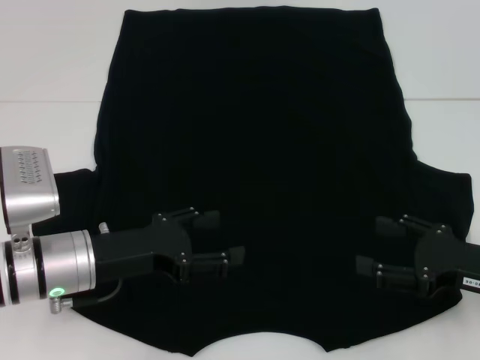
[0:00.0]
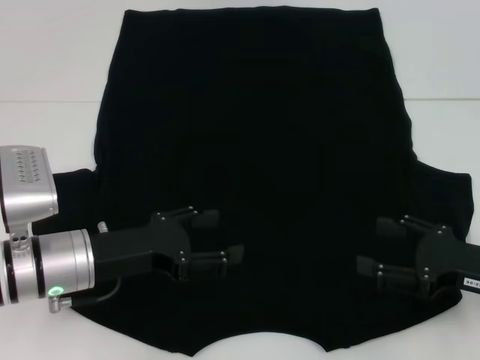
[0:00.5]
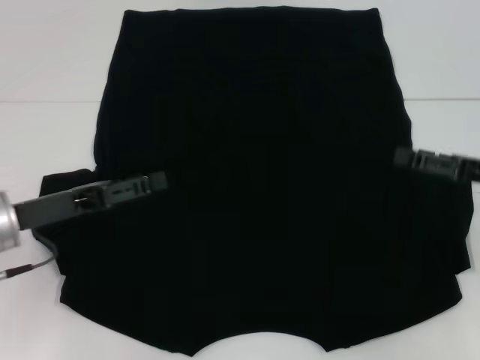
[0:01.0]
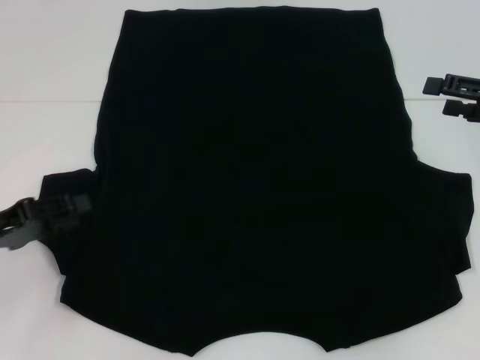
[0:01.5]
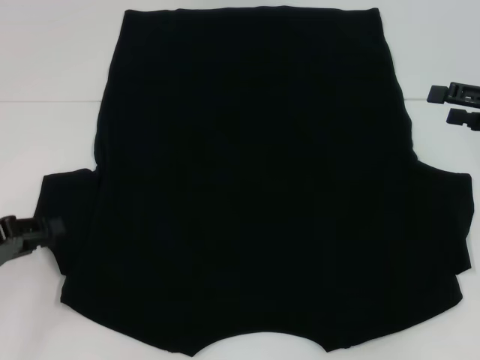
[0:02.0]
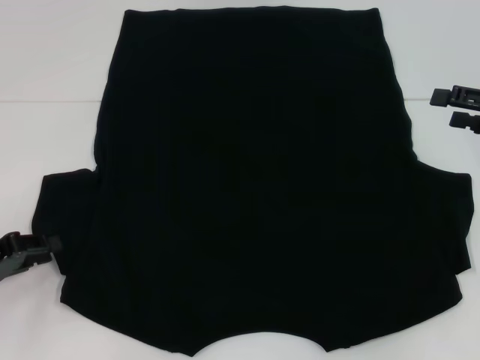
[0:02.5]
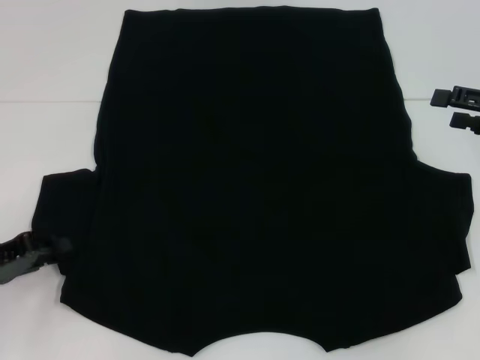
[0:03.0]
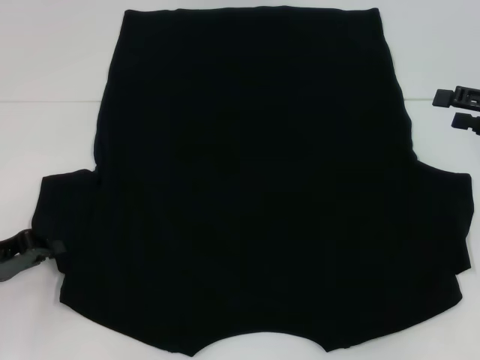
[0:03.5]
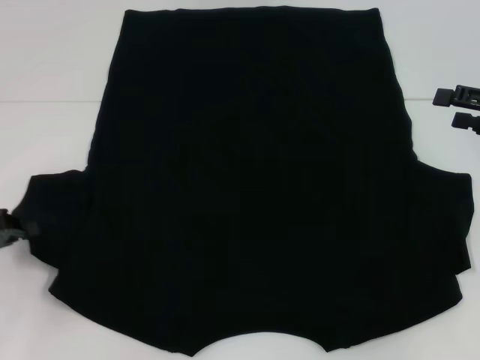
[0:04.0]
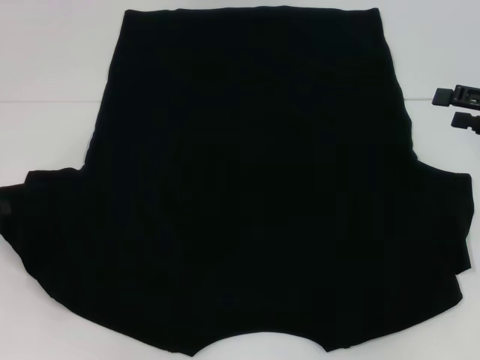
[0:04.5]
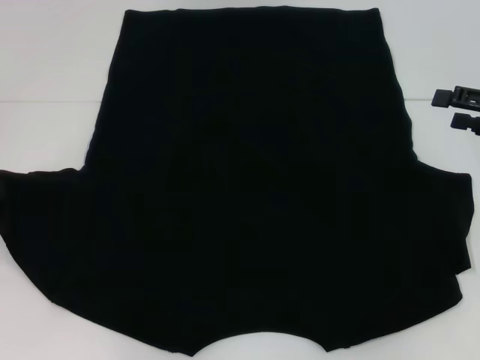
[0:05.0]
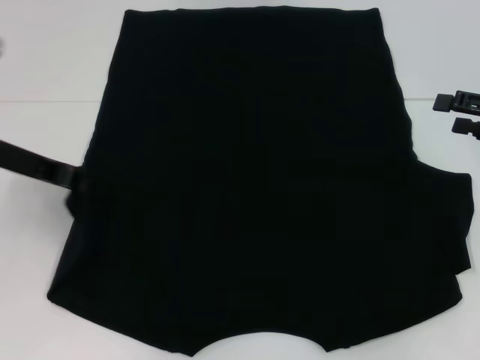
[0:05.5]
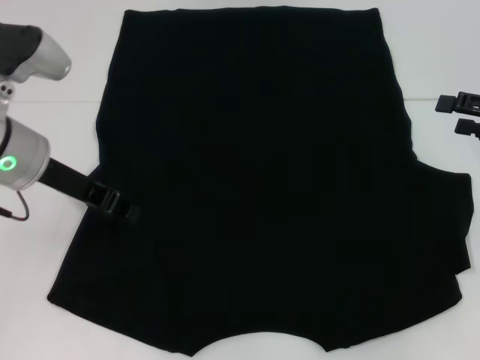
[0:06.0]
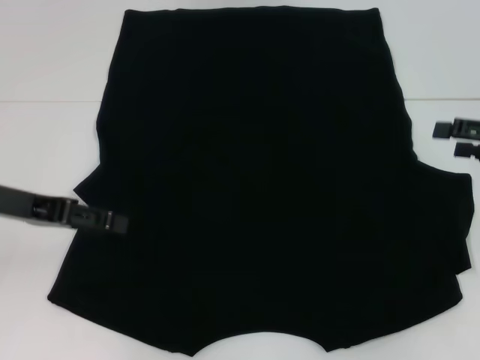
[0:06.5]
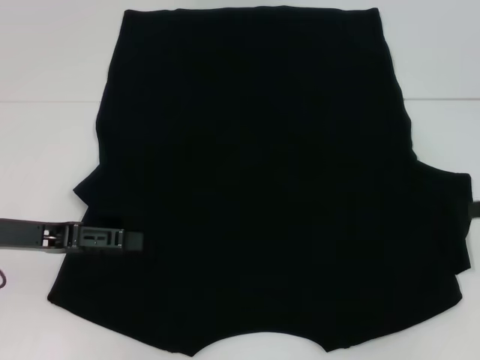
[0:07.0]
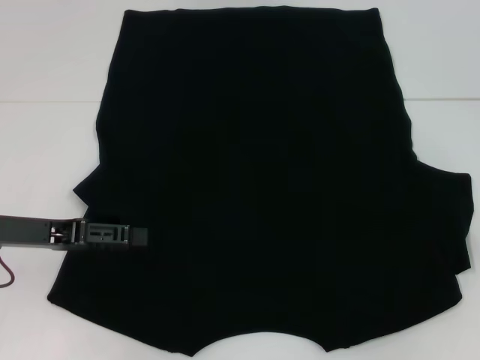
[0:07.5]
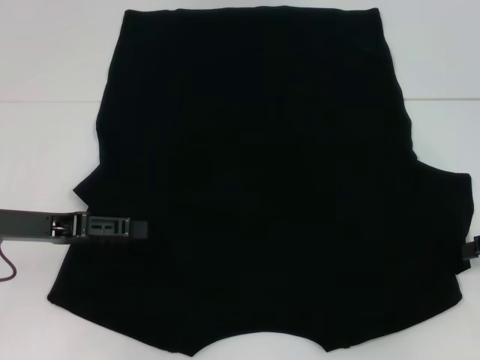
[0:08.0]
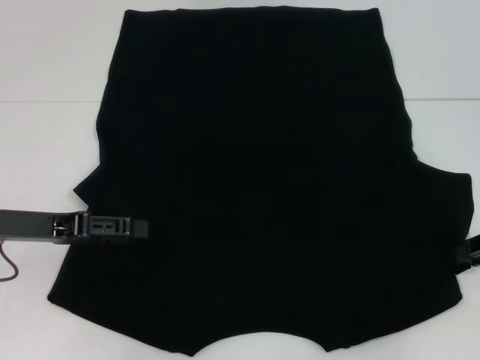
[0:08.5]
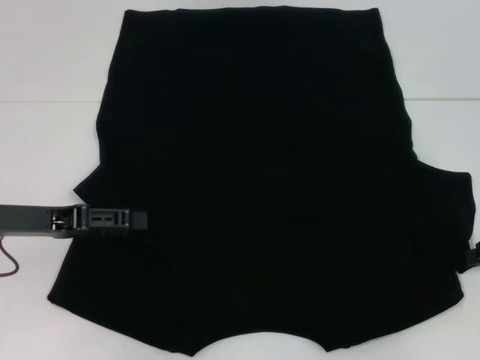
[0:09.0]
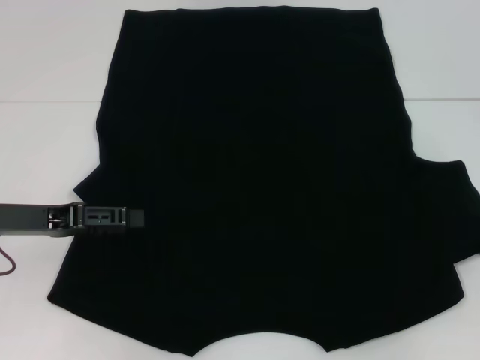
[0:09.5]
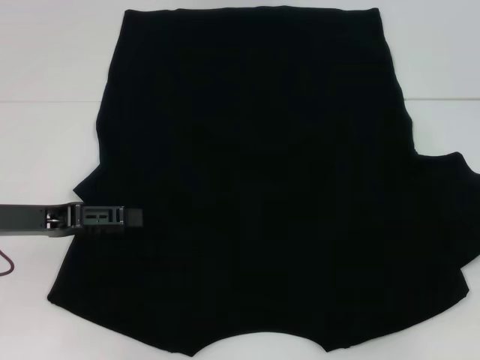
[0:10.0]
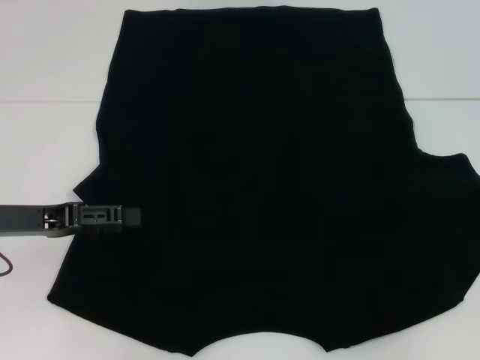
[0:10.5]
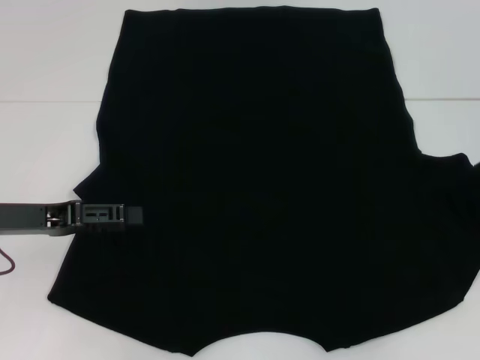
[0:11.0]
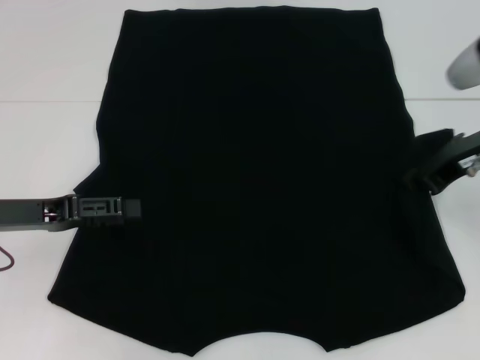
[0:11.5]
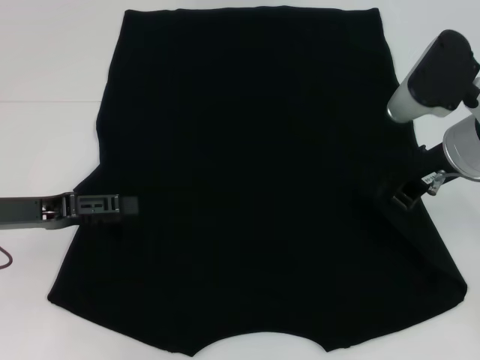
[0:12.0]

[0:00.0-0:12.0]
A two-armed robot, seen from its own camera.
Step, 0:00.0 to 0:06.5: Fold the bottom left sleeve with your left hand.
0:00.0 to 0:02.0: The right gripper goes approximately 15 cm forward, upward and to the right. Meanwhile the left gripper heads to the left, covering about 15 cm, and closes.
0:02.0 to 0:04.0: The left gripper closes.
0:04.0 to 0:06.0: The left gripper travels to the right, upward and forward by about 20 cm.
0:06.0 to 0:08.0: The right gripper shifts by roughly 5 cm, and closes its fingers. The left gripper is displaced to the left, downward and backward by some 10 cm, and opens its fingers.
0:08.0 to 0:10.0: The right gripper closes.
0:10.0 to 0:12.0: The right gripper heads to the left, covering about 20 cm.

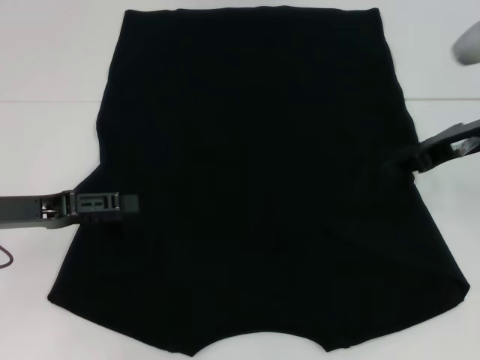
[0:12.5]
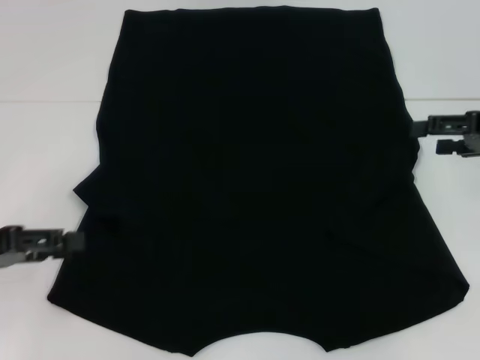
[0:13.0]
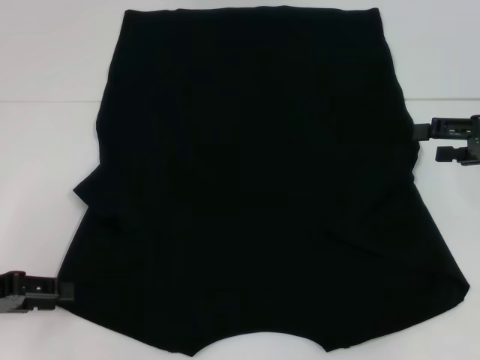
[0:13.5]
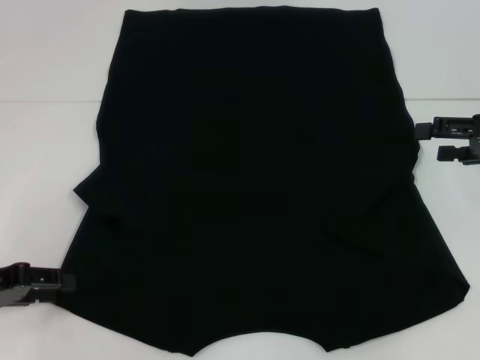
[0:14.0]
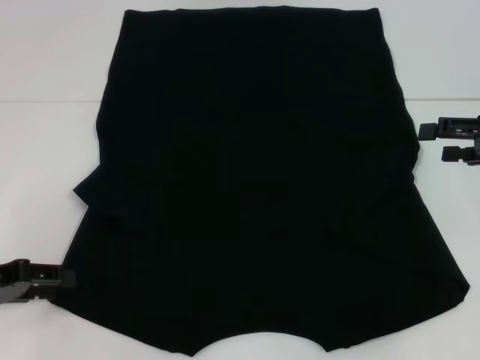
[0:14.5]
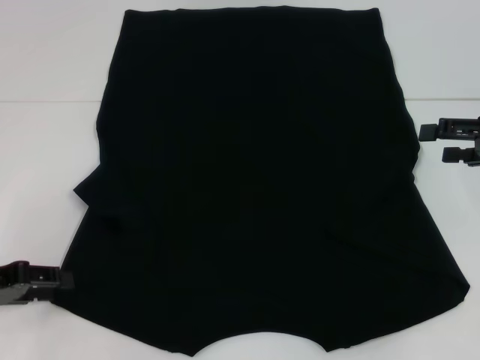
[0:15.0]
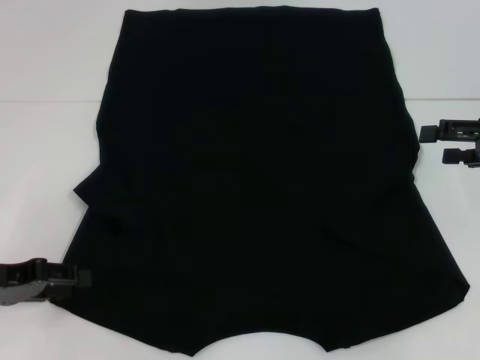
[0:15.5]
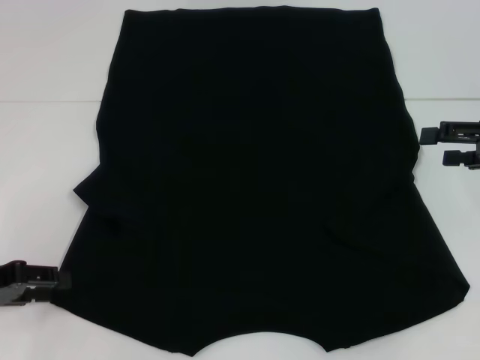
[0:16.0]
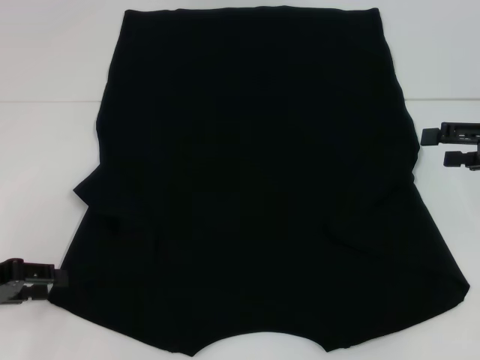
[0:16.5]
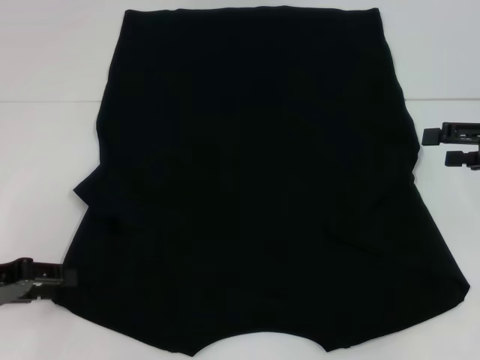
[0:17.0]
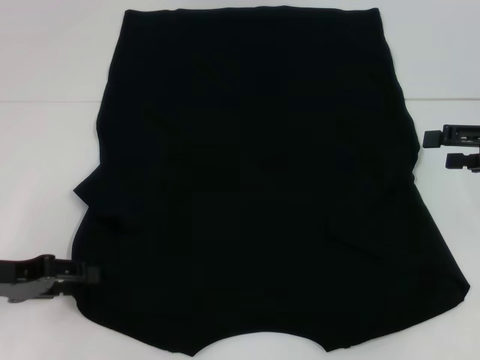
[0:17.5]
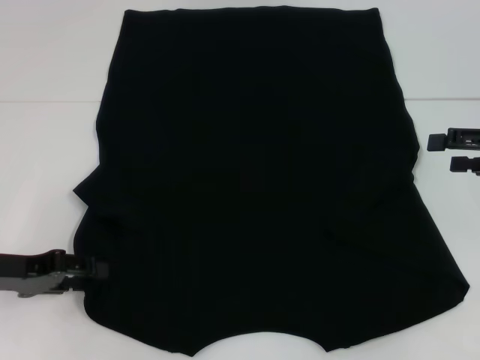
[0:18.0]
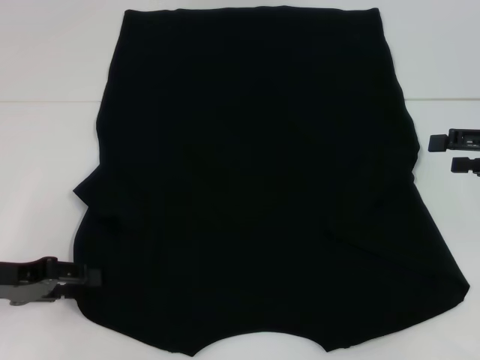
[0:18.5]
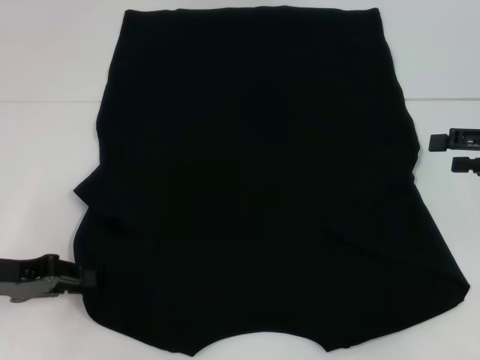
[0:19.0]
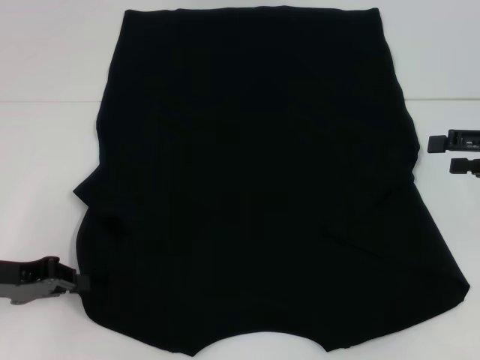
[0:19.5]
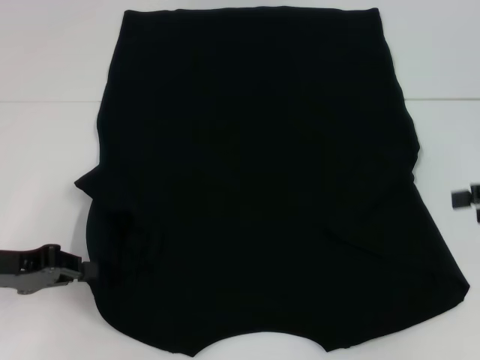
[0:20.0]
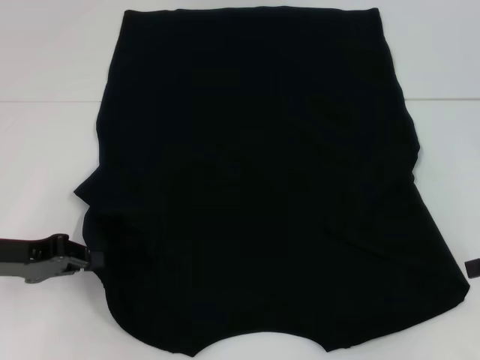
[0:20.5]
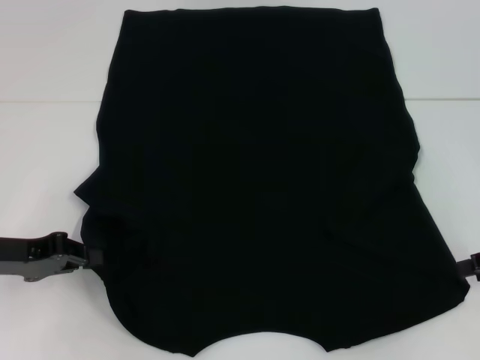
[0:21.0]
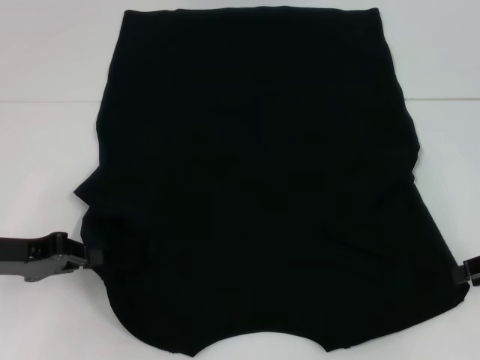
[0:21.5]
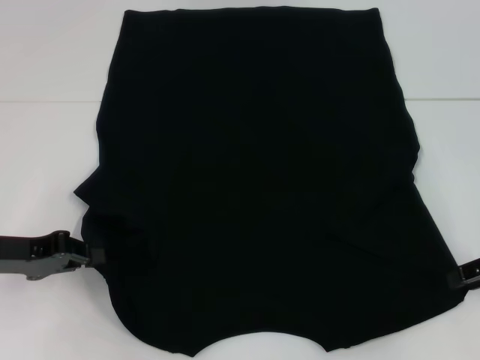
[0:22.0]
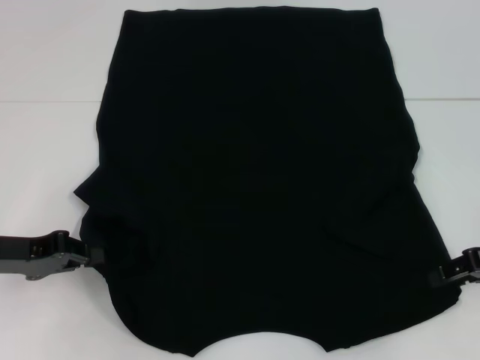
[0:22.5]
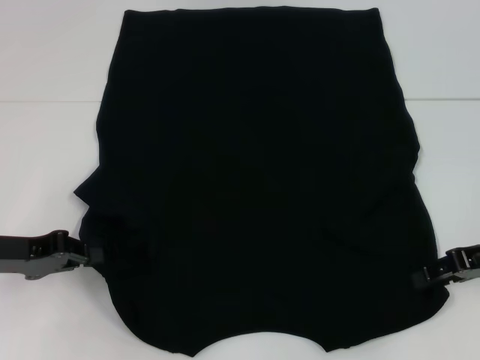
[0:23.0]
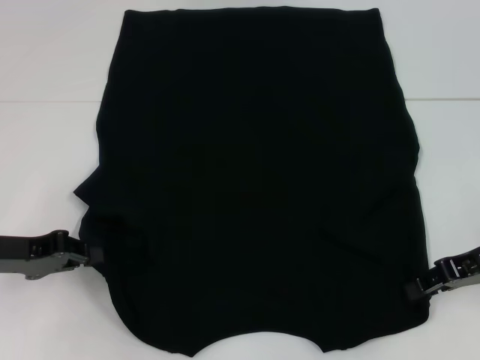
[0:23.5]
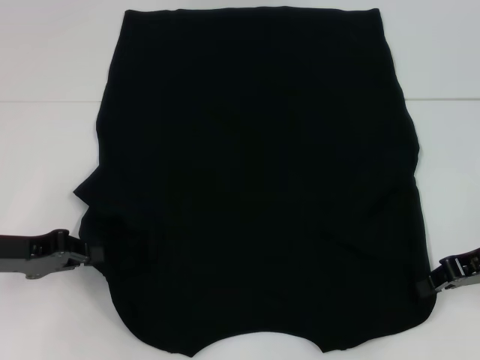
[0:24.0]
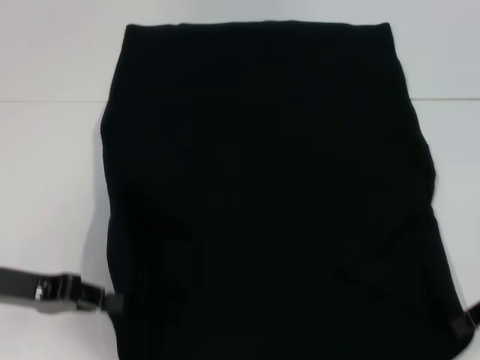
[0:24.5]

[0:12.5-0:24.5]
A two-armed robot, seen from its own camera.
Step, 0:12.5 to 0:19.5: Grab the bottom left corner with your left hand.
Step, 0:20.0 to 0:24.0: Grab the bottom right corner with your right hand.
0:12.5 to 0:14.5: The right gripper goes approximately 10 cm to the right, and opens its fingers. The left gripper ends up some 5 cm from where it was.
0:14.5 to 0:18.5: The grippers stay close to where they were, moving slightly.
0:18.5 to 0:20.5: The left gripper closes up; the right gripper ends up some 5 cm from where it was.
0:20.5 to 0:22.5: The right gripper shifts by about 5 cm.
0:22.5 to 0:24.5: The right gripper closes its fingers.

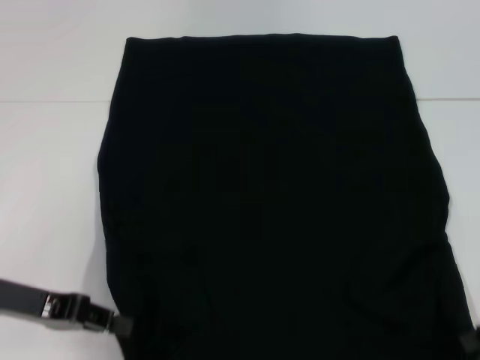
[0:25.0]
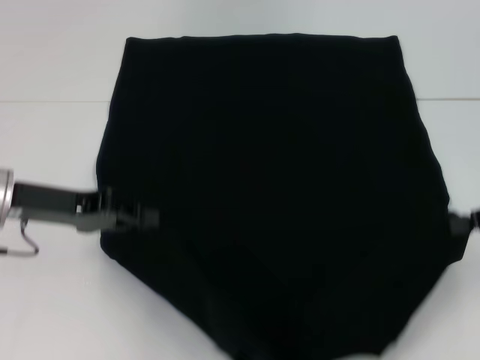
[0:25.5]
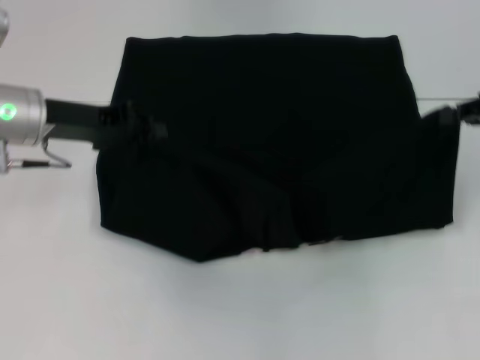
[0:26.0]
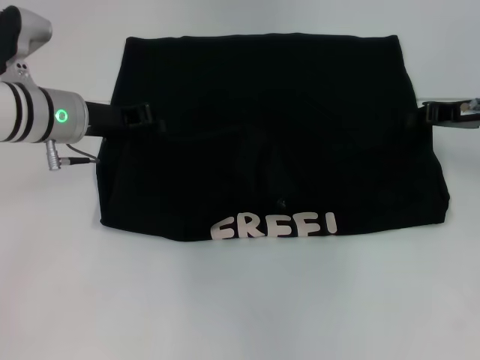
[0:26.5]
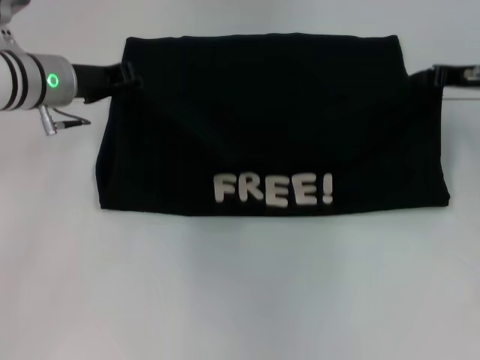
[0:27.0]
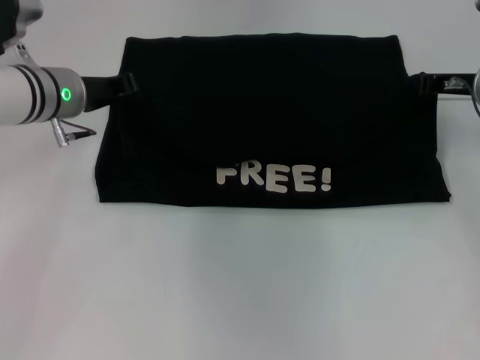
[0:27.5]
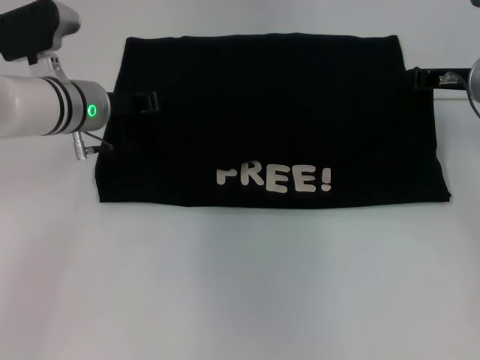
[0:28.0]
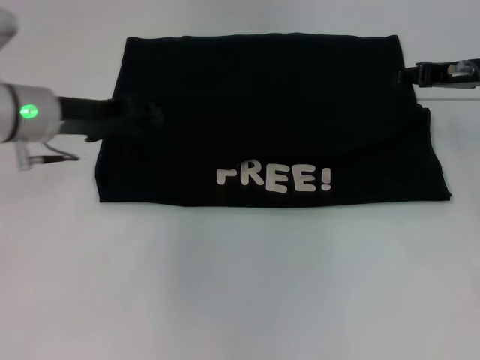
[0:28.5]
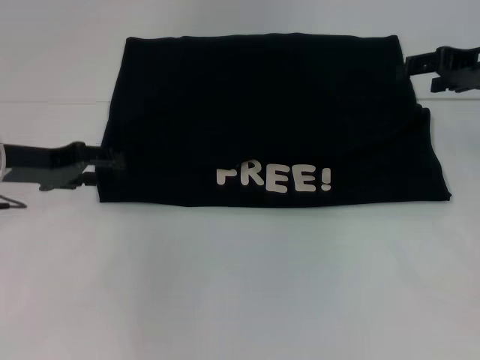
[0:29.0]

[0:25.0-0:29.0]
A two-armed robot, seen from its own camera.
Step, 0:25.0 to 0:28.0: Fold the clothes with your left hand.
Step, 0:25.0 to 0:28.0: Fold the clothes with your right hand.
0:25.0 to 0:27.0: The grippers both shift forward by about 15 cm.
0:27.0 to 0:29.0: The left gripper is displaced backward and to the left by roughly 10 cm, and opens up. Meanwhile the right gripper opens up.
